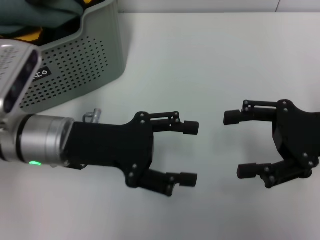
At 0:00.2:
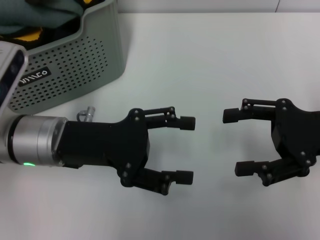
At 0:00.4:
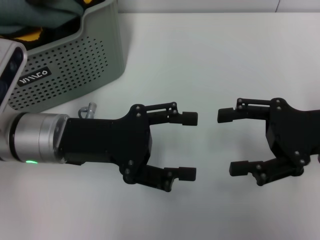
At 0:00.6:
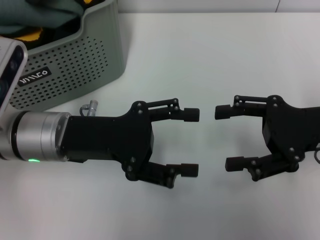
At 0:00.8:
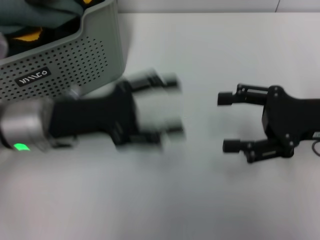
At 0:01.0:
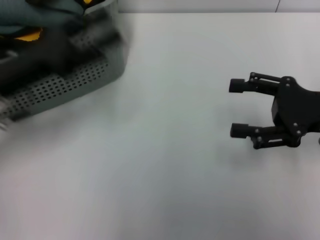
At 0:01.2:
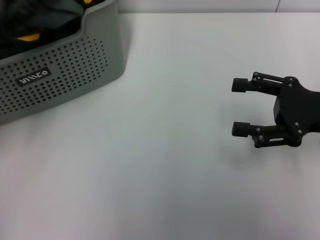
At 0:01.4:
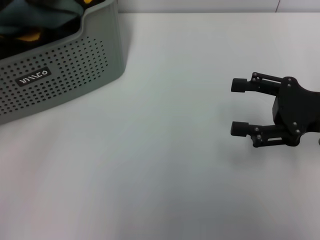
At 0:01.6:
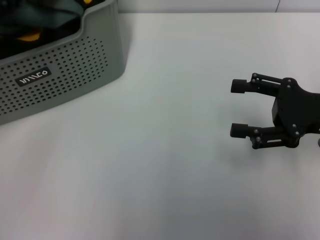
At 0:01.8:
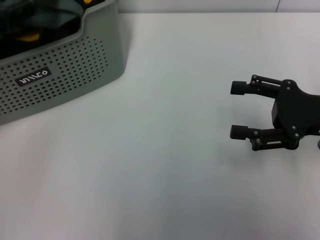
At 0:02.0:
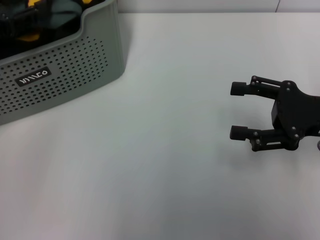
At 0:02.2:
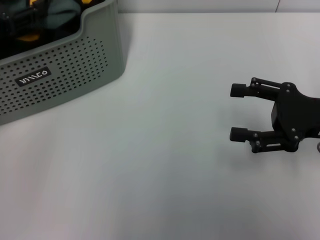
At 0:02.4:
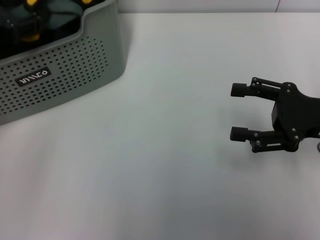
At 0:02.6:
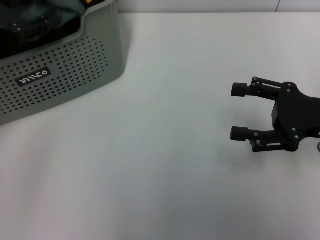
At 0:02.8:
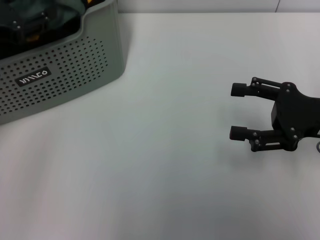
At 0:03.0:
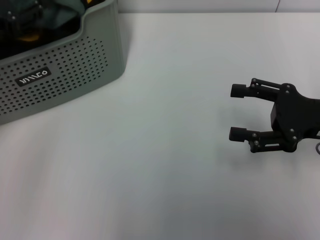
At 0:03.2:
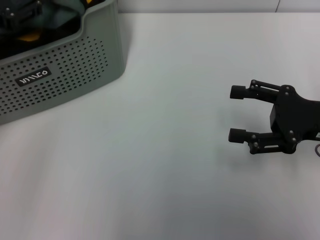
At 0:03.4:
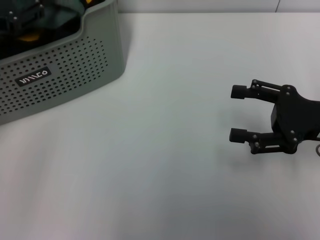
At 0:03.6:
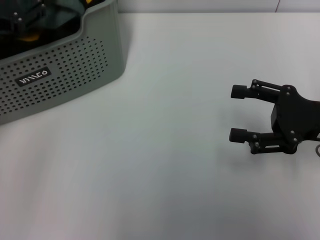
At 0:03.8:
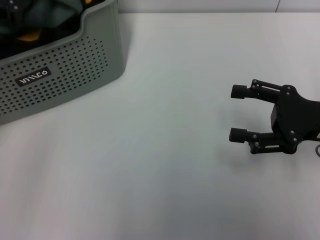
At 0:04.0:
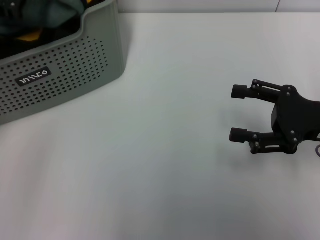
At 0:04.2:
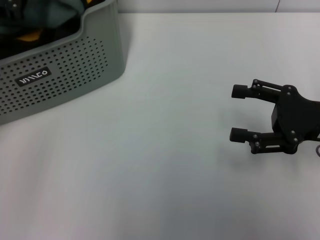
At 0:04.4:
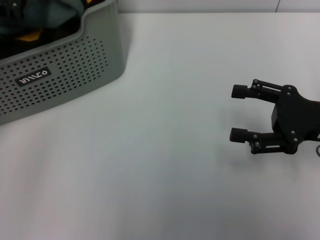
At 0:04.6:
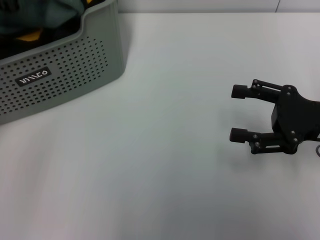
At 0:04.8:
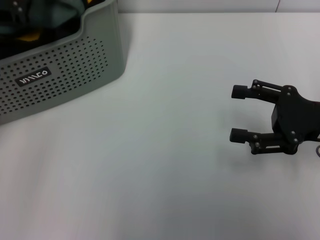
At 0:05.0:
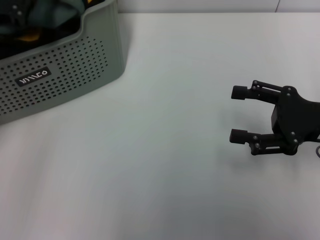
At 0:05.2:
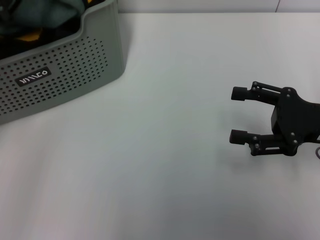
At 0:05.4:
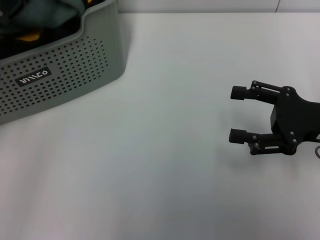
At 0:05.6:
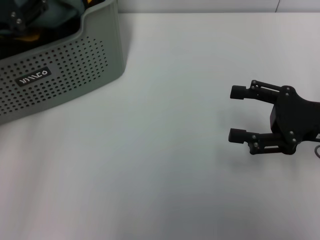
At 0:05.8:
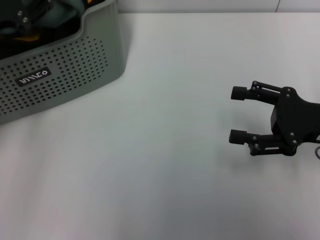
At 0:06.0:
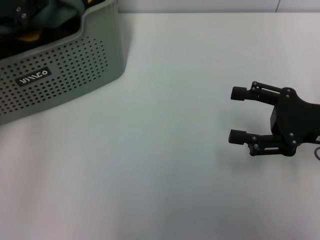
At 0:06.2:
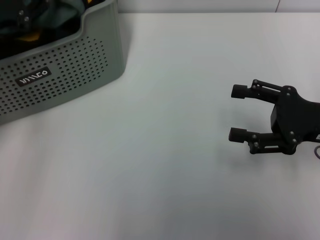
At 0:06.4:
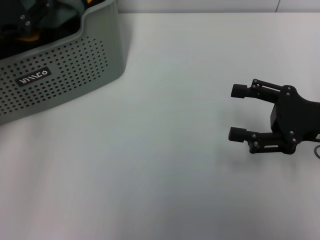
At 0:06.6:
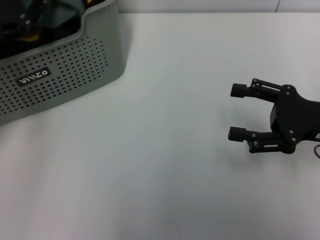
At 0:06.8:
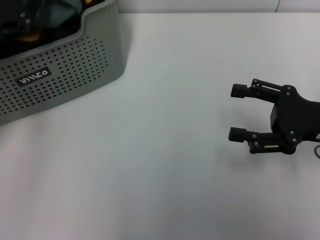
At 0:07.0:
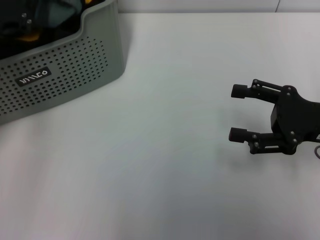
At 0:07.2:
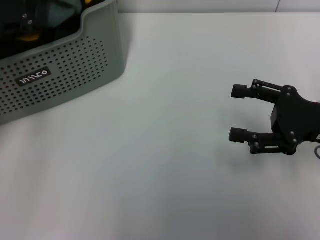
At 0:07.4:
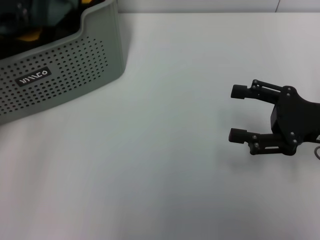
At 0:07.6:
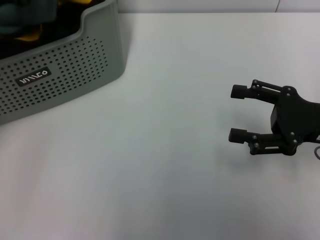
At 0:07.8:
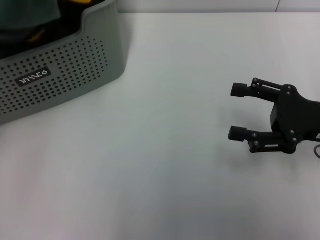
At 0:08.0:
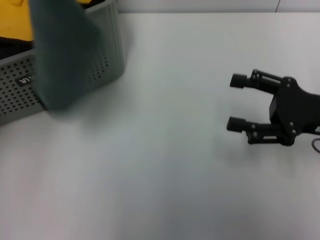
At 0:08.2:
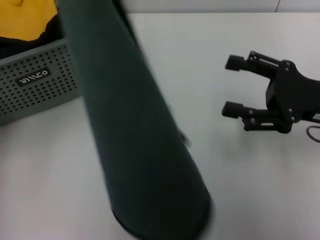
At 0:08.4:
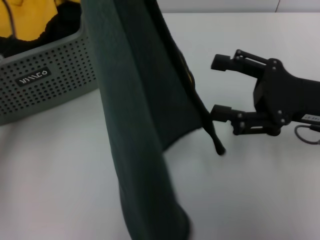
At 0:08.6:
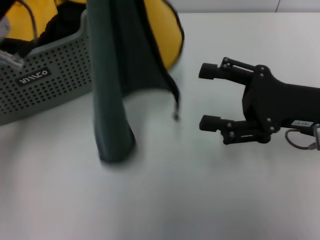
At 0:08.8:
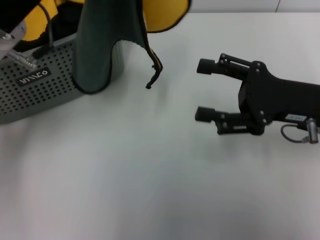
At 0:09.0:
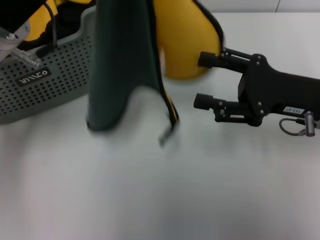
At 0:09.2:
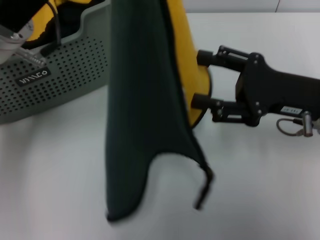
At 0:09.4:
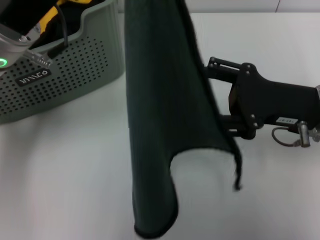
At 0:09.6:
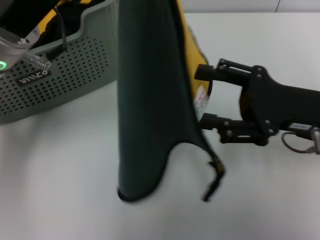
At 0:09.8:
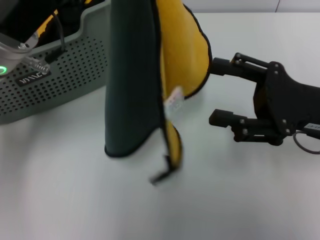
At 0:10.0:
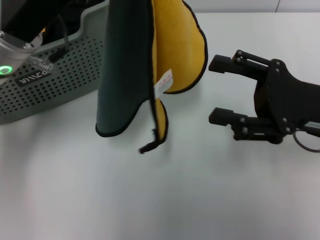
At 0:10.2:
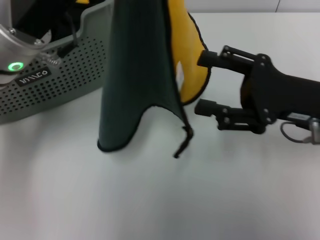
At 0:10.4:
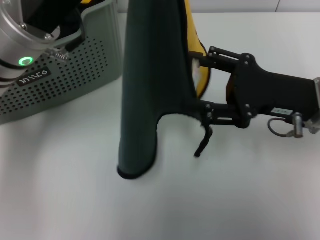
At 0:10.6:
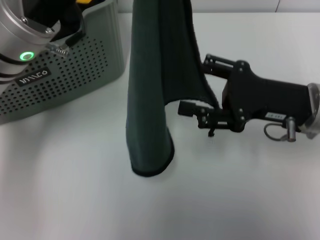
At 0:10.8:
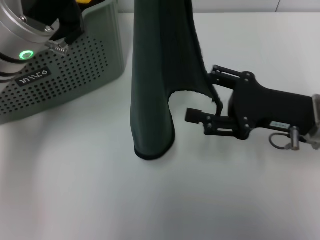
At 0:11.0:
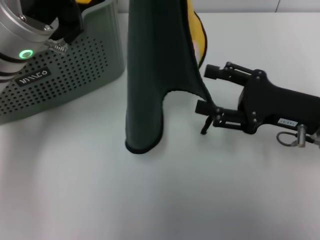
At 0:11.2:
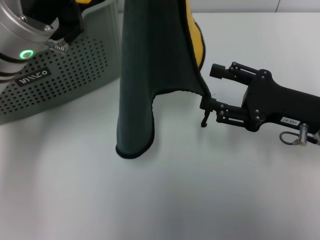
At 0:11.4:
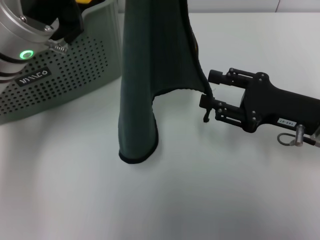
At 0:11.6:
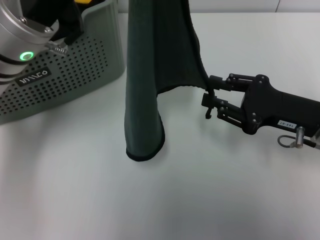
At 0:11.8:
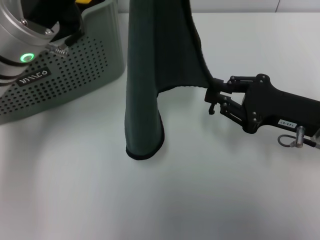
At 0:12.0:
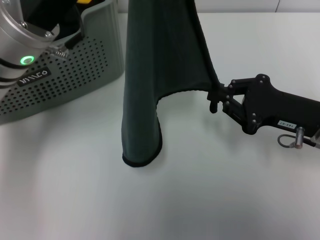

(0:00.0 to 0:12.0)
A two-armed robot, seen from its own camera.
Task of the whole recording: pick up the towel from the storage box and lay it flat on the table.
Step, 0:00.0 - 0:07.0: Pick up a towel with the left gripper.
Step, 0:07.2 - 0:12.0: Spread the towel flat with the left gripper.
0:00.0 - 0:01.6: The left gripper shifts about 15 cm to the left and upward.
0:06.0 - 0:07.6: The left gripper closes up.
0:07.6 - 0:09.0: The right gripper changes place by approximately 5 cm. Meanwhile the left gripper heads to the right, covering approximately 10 cm.
0:10.4 - 0:12.0: The right gripper closes its fingers.

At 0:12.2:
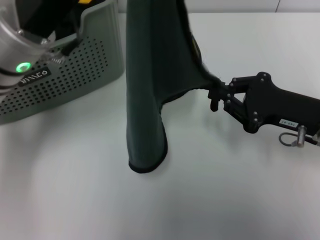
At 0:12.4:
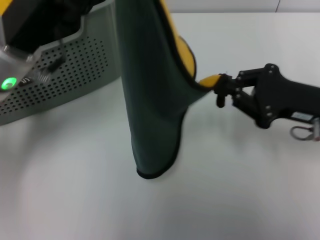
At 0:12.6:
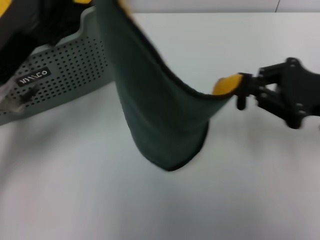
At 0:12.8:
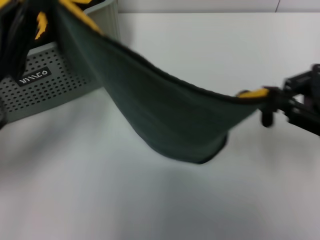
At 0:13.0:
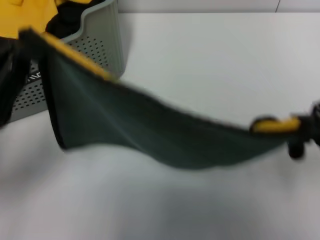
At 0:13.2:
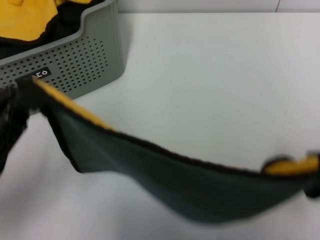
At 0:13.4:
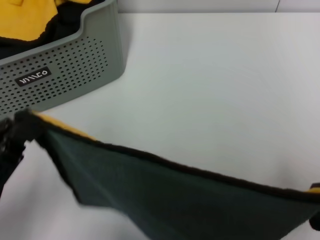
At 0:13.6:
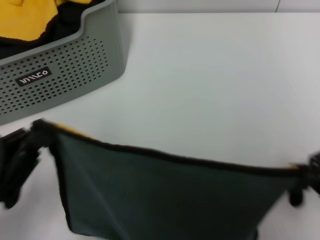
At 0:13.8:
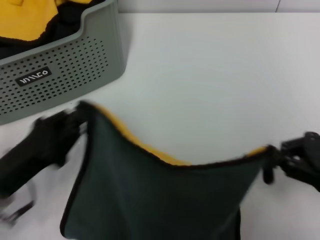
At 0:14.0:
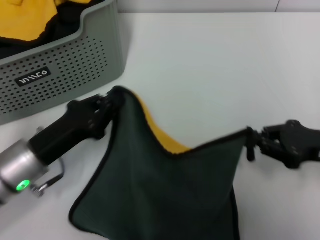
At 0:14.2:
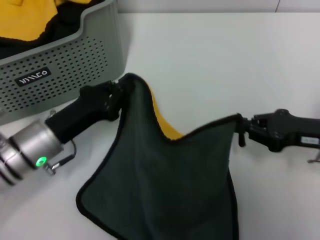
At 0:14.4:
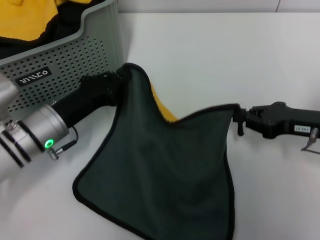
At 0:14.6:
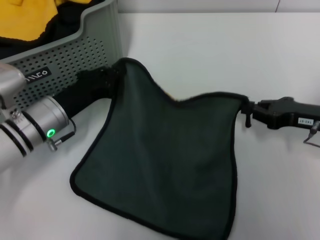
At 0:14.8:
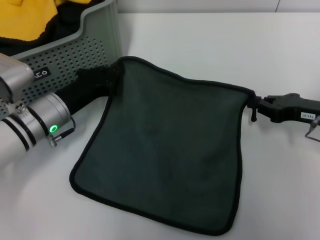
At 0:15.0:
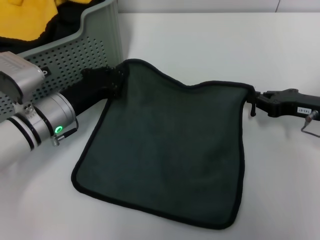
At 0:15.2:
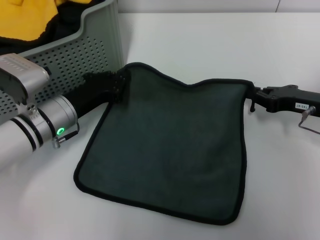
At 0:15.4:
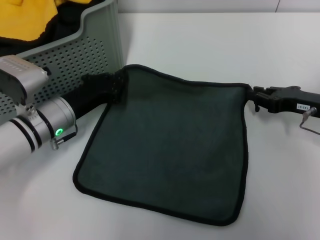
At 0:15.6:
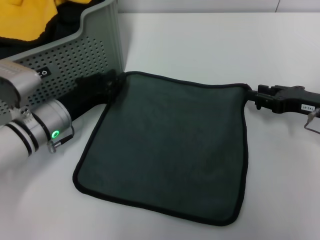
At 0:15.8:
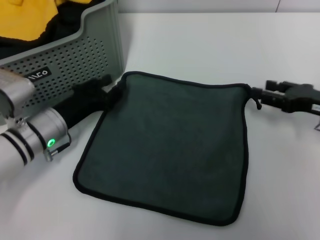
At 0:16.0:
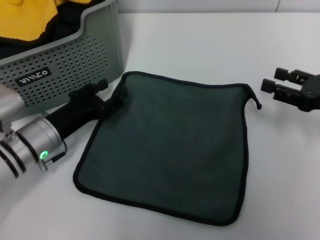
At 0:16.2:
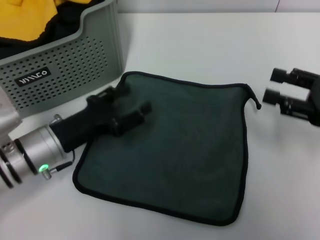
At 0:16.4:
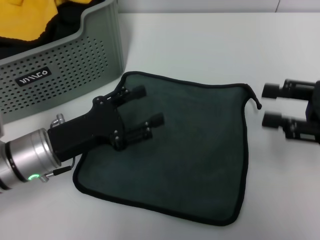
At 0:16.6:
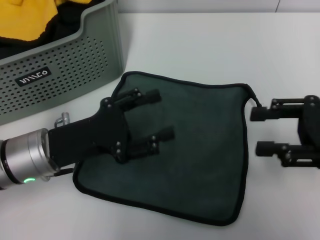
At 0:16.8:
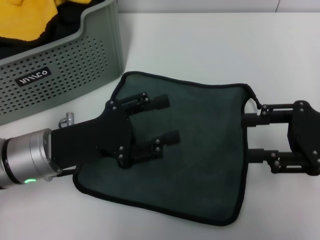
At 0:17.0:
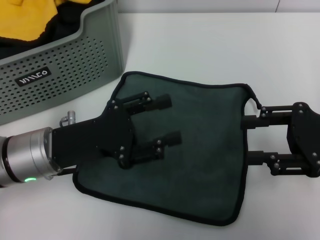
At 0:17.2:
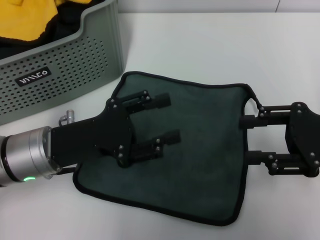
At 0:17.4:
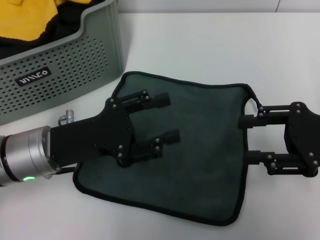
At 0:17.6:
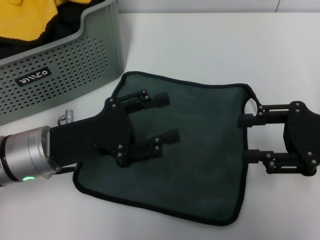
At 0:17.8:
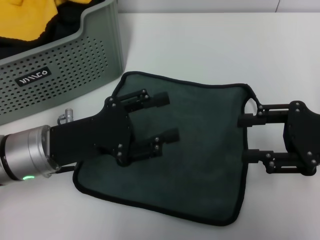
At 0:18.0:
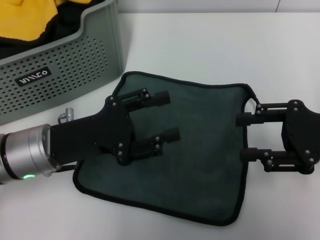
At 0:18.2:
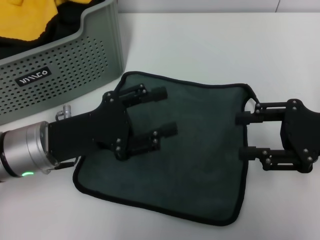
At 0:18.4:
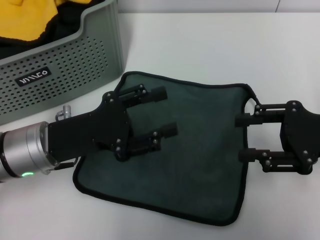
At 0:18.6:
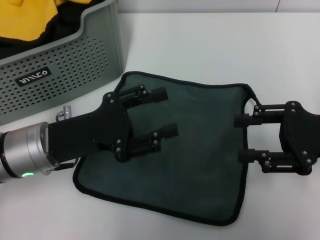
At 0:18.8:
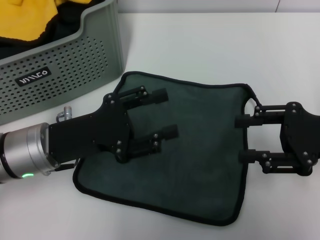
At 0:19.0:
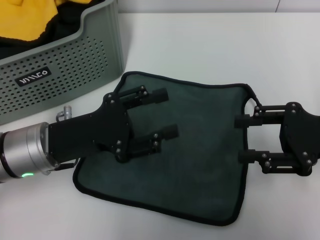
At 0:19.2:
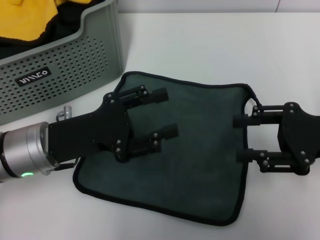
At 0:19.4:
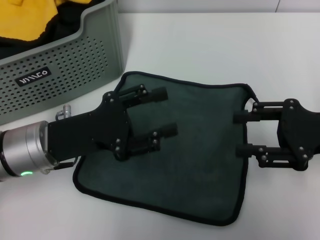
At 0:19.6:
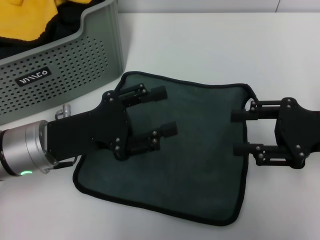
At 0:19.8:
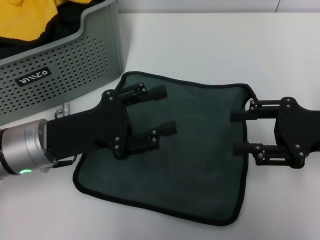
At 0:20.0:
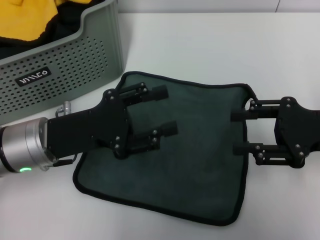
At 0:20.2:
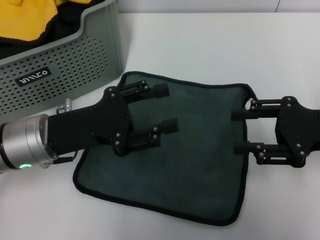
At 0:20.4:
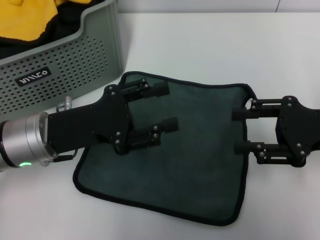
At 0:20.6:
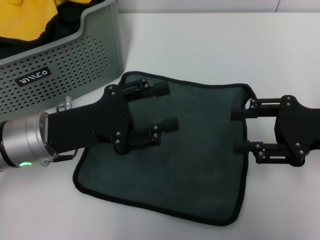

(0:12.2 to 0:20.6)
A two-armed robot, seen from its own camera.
Task of the whole recording: pick up the towel from the storage box and lay it flat on the table.
Step, 0:12.2 - 0:15.4: Spread the towel flat with the right gripper.
0:12.2 - 0:13.6: The left gripper heads backward, downward and to the left, covering about 20 cm, while the right gripper moves to the right and backward, roughly 10 cm.
0:13.6 - 0:15.0: The right gripper heads forward and downward, covering roughly 15 cm. Meanwhile the left gripper goes some 20 cm forward.
0:15.0 - 0:16.4: The left gripper travels backward by some 5 cm, and opens its fingers. Meanwhile the right gripper moves upward and backward, approximately 10 cm, and opens its fingers.
0:16.4 - 0:17.8: The grippers make only small movements.
0:17.8 - 0:19.2: The two grippers keep their place.
0:19.2 - 0:20.6: Both grippers stay about where they are.
